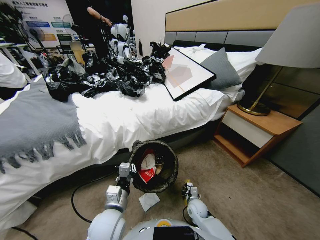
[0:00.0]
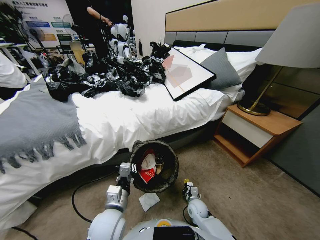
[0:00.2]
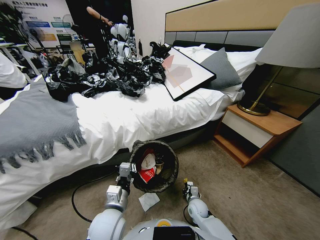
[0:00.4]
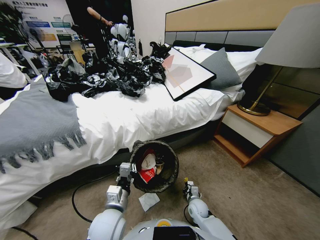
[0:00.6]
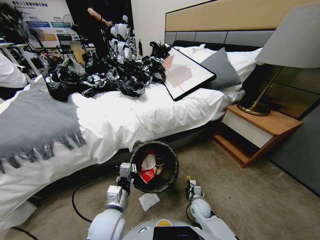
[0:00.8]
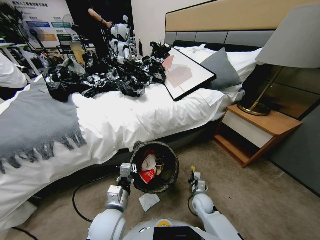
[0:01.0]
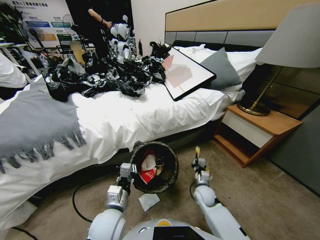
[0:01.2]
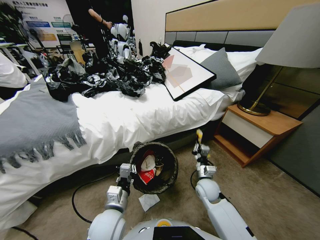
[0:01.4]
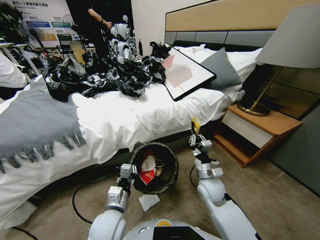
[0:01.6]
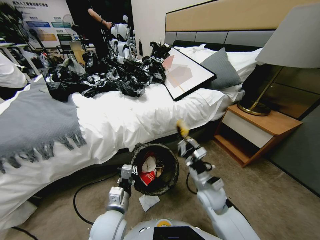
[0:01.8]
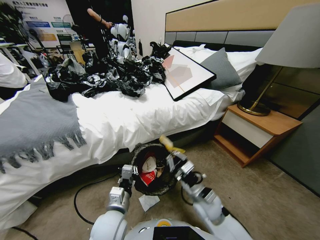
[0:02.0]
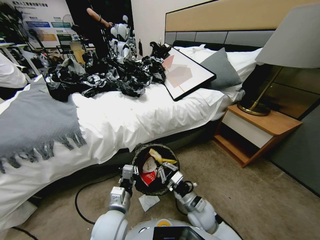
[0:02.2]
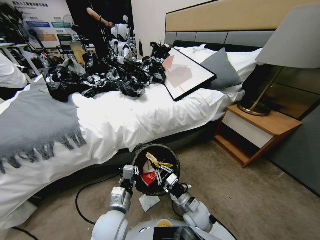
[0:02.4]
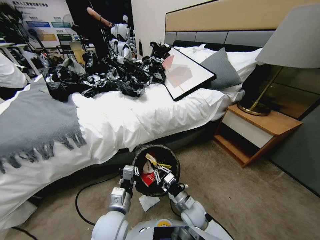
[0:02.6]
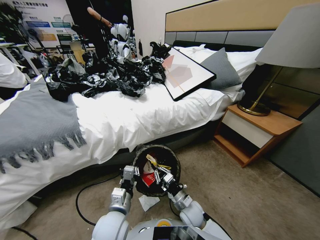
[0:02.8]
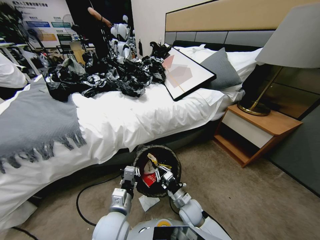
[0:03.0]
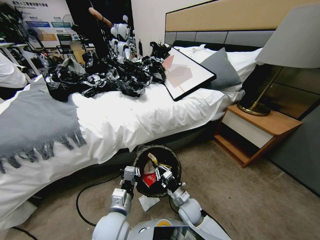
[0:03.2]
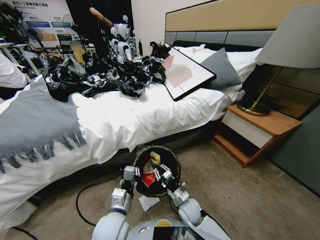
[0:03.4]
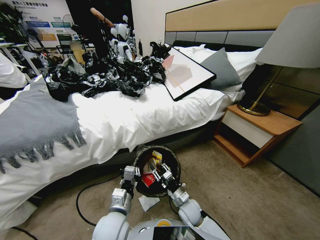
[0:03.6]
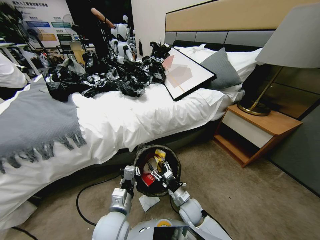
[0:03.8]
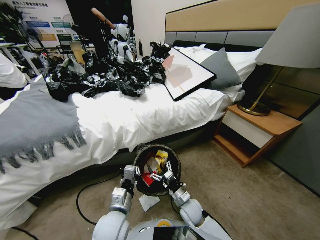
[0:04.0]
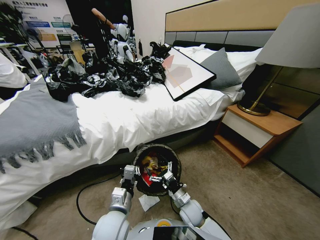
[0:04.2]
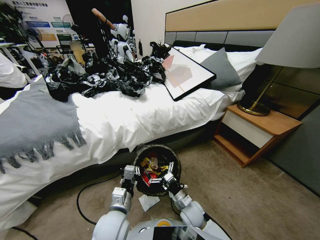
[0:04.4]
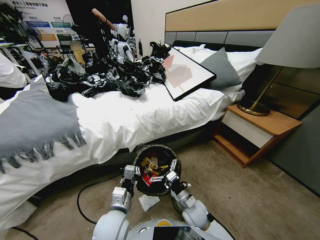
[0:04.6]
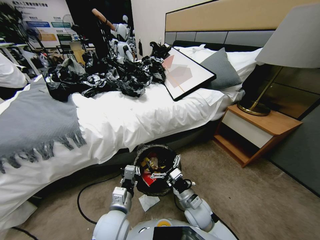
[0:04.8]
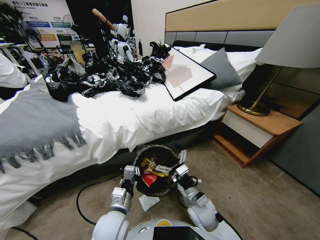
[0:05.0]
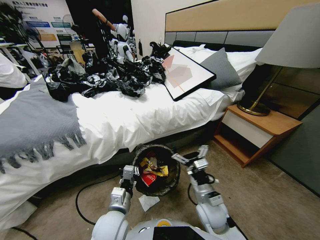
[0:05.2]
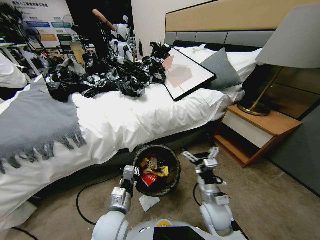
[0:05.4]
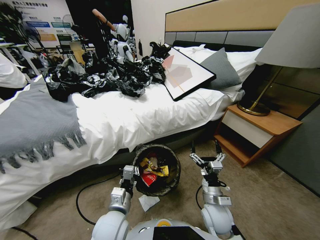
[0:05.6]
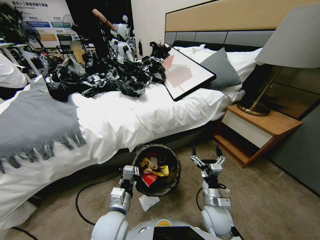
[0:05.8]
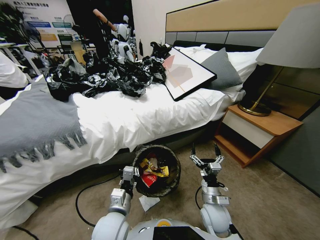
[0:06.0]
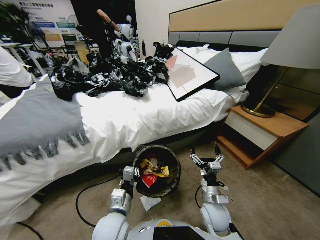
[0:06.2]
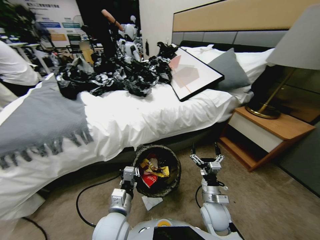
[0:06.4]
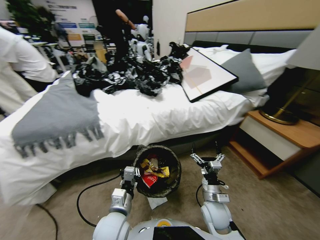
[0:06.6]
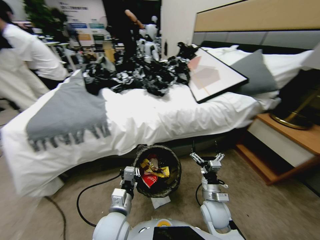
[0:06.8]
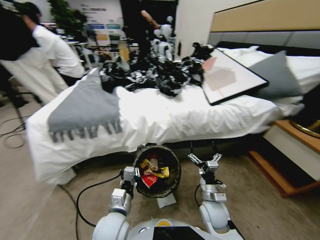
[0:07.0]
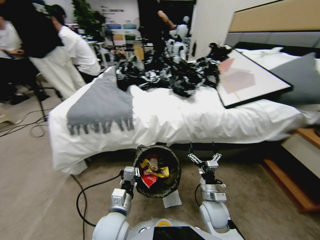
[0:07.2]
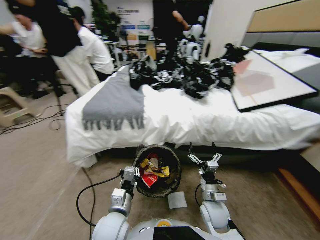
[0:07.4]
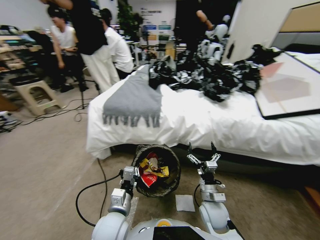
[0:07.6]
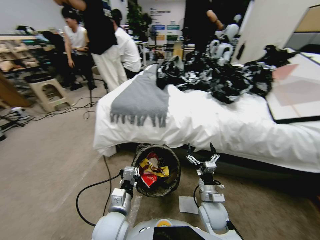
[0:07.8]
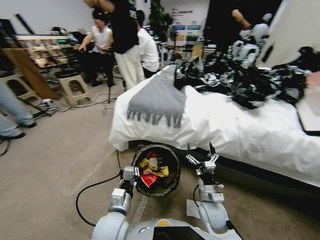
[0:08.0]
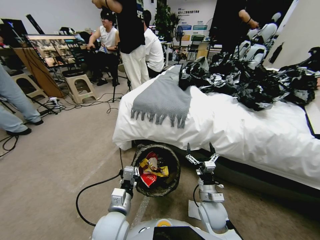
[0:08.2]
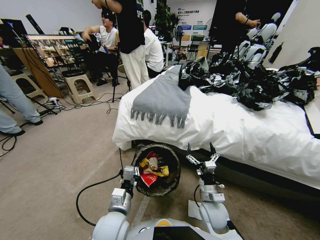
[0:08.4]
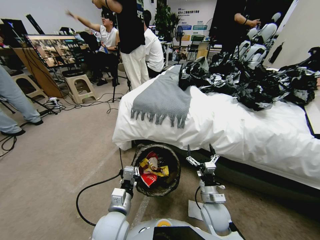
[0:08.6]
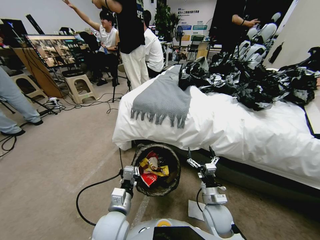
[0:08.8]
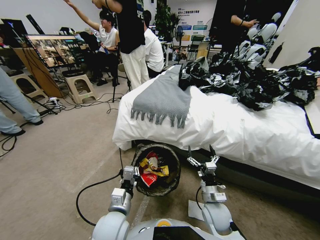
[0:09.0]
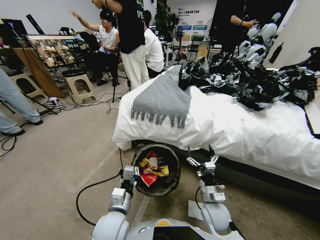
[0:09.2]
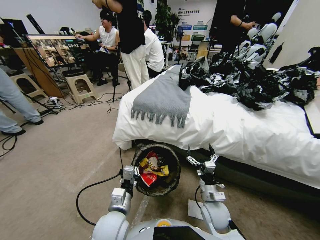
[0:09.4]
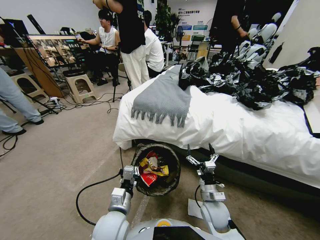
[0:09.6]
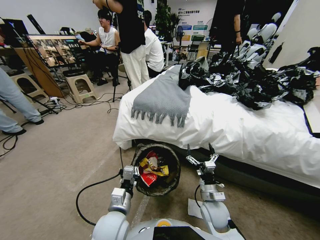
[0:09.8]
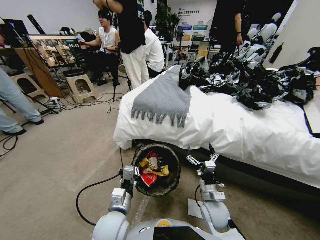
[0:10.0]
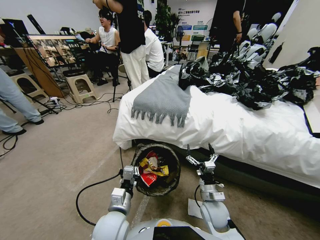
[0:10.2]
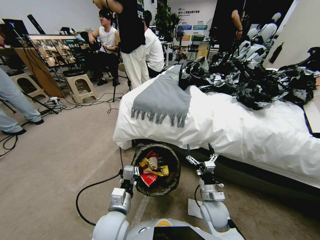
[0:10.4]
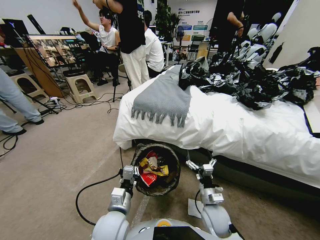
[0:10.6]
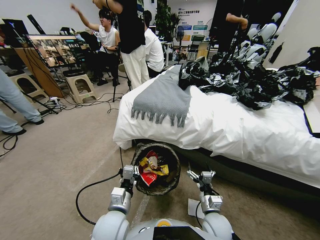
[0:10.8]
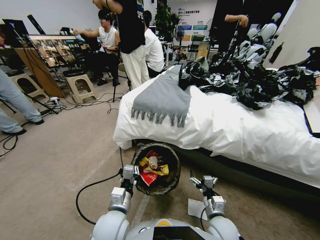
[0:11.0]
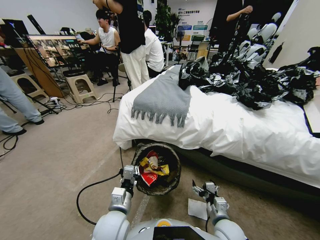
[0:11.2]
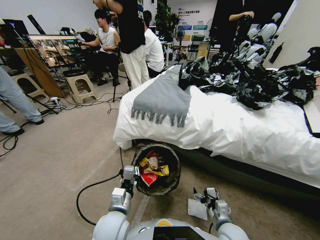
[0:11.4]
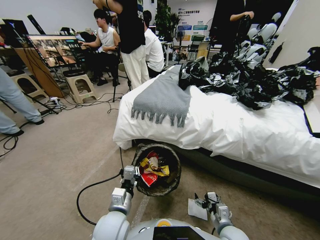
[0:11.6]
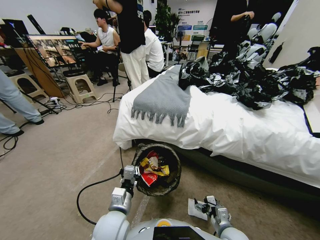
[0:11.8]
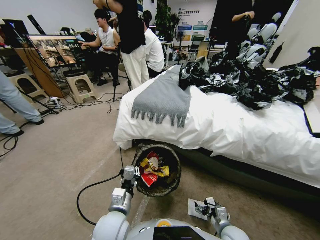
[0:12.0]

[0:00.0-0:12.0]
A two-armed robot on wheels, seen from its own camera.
Task of the whole recording: Pick up the trash bin, then pick up the garbage from the floor and place it into the trash bin.
0:00.0 to 0:01.6: The right gripper goes approximately 25 cm upward.
0:01.6 to 0:03.0: The right gripper shifts some 15 cm downward and to the left.
0:03.0 to 0:04.4: The right gripper opens.
0:04.4 to 0:06.0: The right gripper shifts roughly 5 cm to the right.
0:09.0 to 0:10.4: Neither gripper changes place.
0:10.4 to 0:12.0: The right gripper heads to the right, backward and downward, covering about 10 cm.

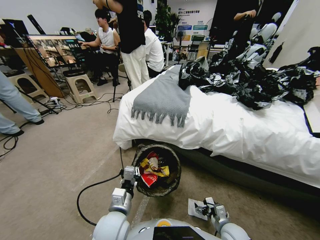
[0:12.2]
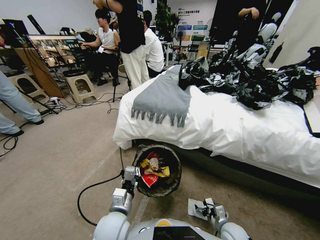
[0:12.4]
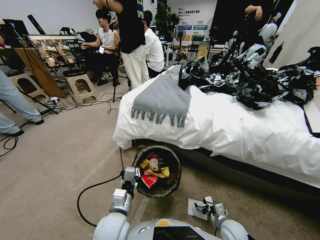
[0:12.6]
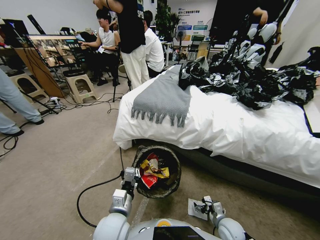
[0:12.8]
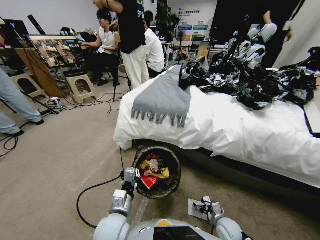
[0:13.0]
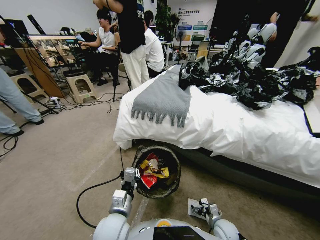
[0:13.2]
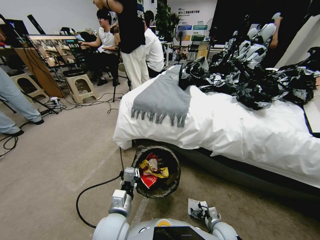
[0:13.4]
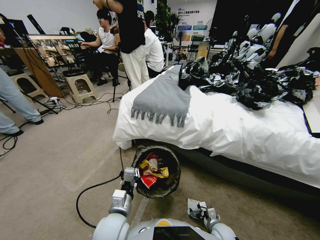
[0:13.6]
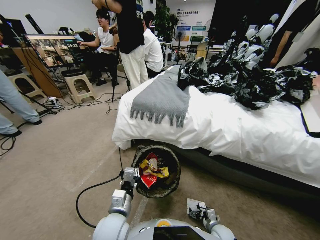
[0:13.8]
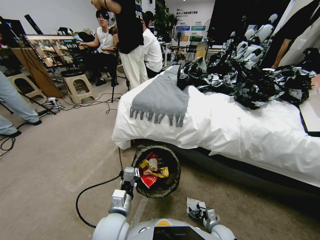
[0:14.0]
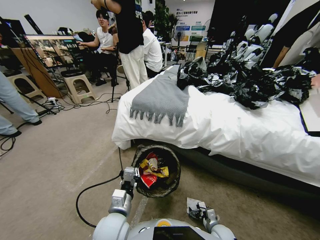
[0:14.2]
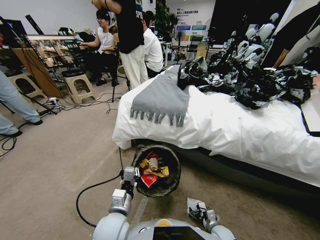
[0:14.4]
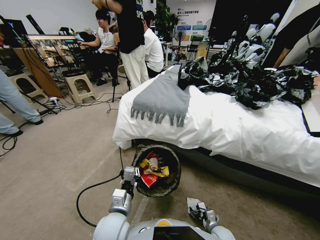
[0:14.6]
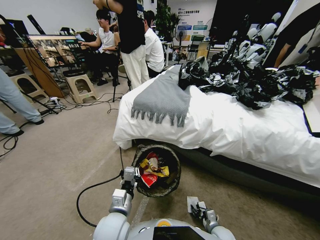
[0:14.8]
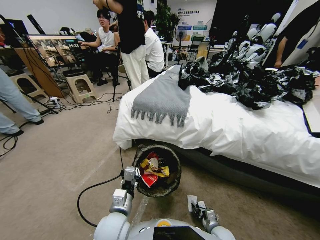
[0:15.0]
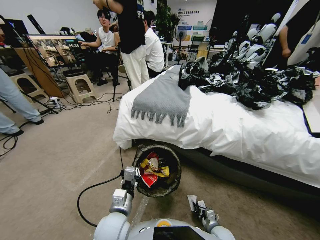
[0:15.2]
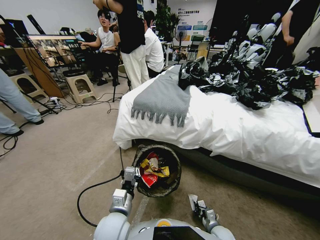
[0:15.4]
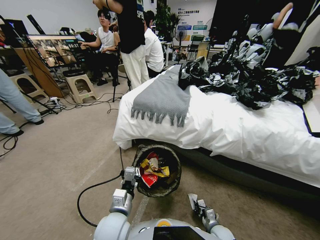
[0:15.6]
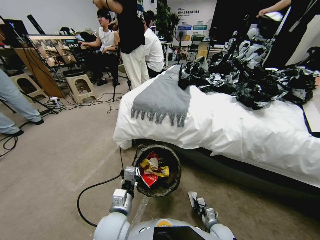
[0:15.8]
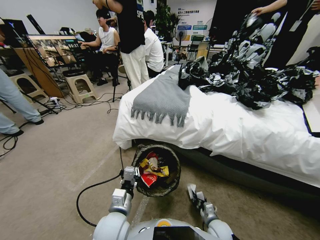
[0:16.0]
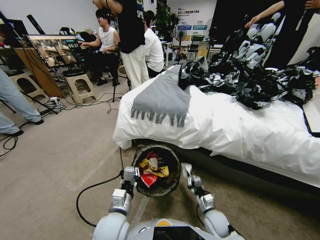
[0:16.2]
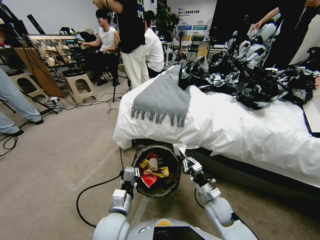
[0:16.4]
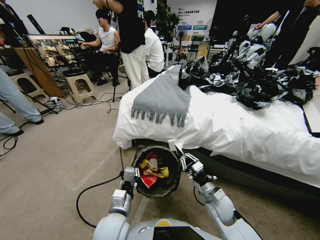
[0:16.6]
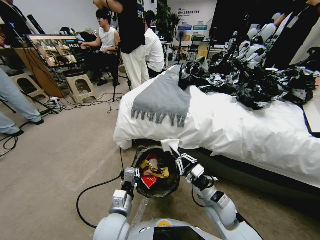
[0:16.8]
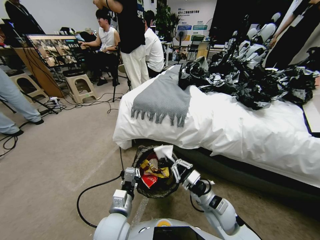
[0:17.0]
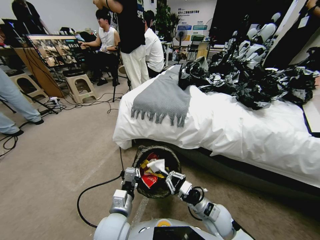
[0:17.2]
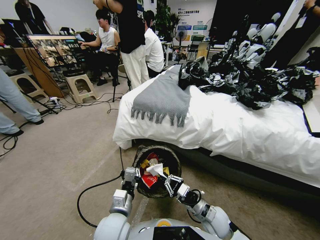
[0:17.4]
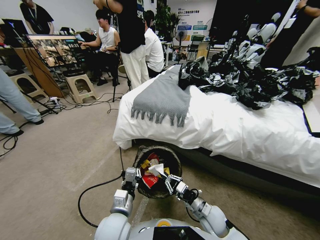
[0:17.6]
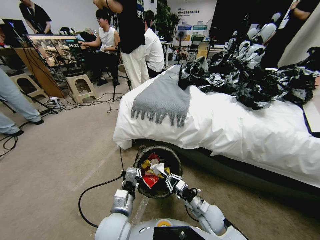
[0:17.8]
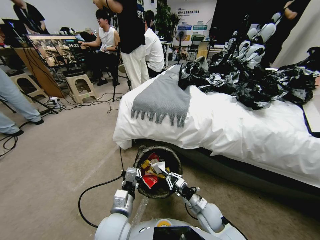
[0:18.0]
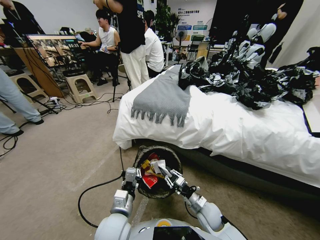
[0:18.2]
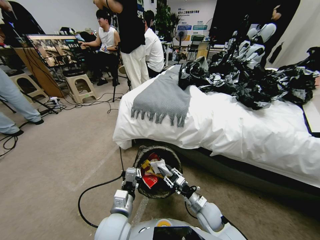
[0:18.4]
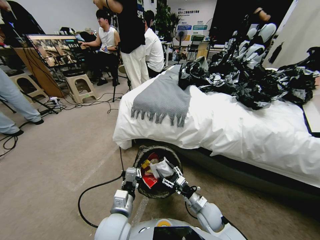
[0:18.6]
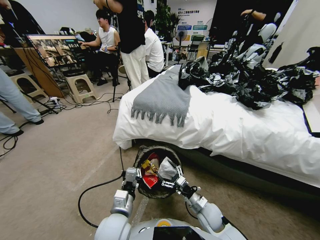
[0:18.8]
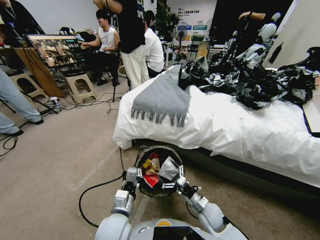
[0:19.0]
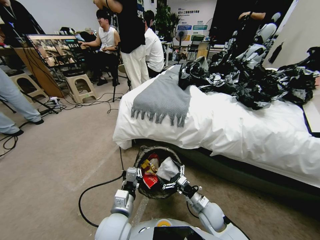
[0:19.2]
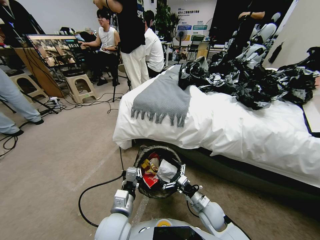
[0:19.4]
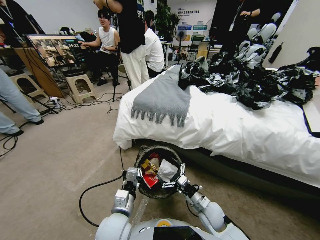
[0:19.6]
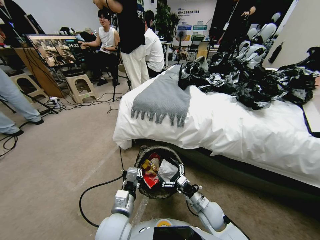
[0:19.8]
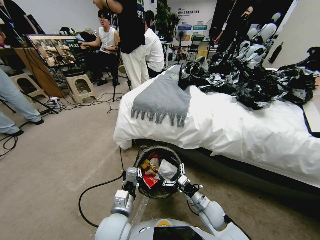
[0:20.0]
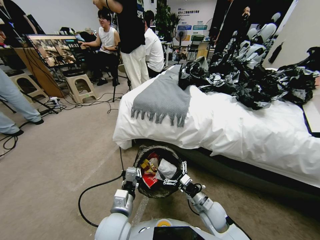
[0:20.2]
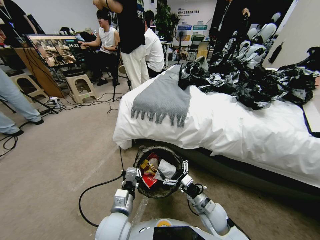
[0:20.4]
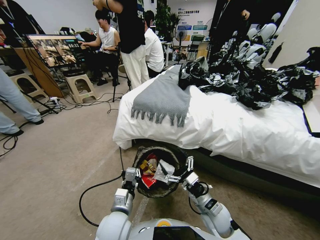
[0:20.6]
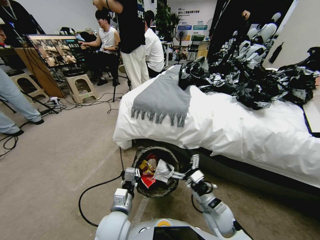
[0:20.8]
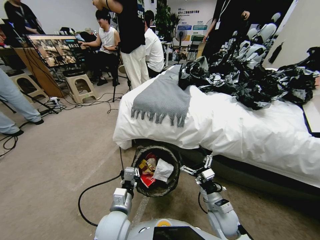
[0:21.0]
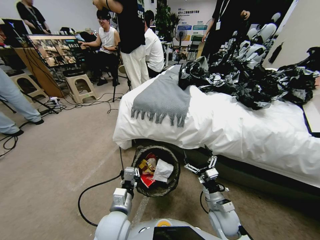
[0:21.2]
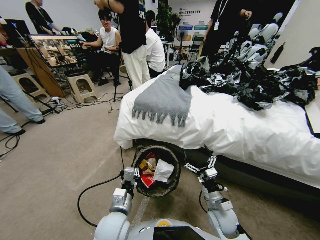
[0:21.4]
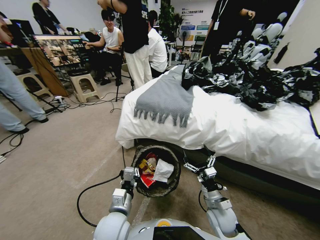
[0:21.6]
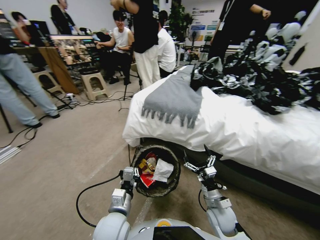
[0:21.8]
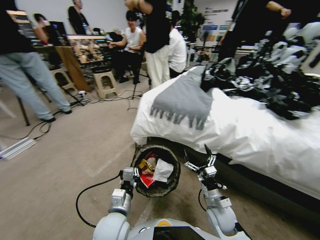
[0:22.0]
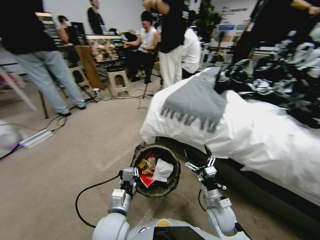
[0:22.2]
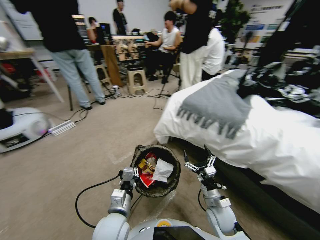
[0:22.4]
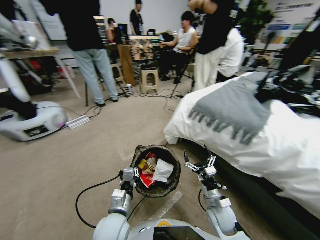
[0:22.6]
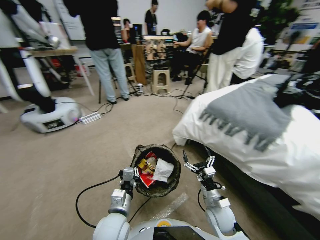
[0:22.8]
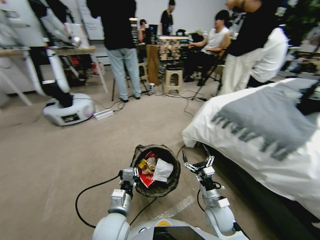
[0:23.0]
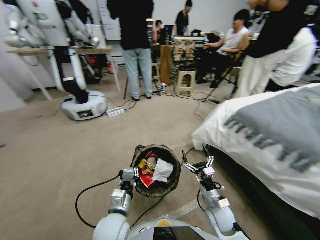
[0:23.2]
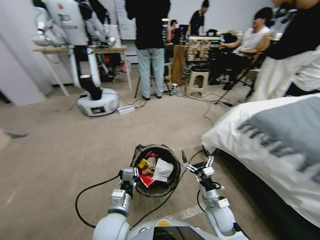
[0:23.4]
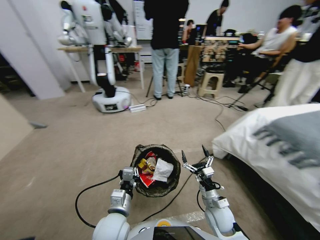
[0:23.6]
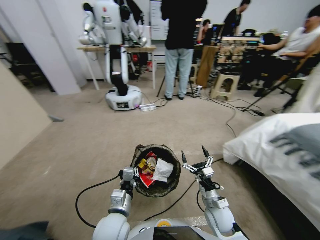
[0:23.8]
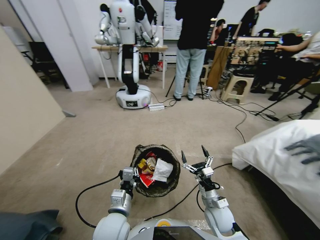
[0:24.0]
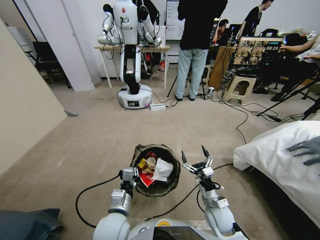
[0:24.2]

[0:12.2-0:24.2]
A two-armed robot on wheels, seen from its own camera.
Task of the whole recording: Pick up the trash bin, then pick up the garbage from the floor and place it into the trash bin.
0:12.2 to 0:13.8: The right gripper is displaced downward by roughly 10 cm.
0:13.8 to 0:15.2: The right gripper closes up.
0:15.2 to 0:16.6: The right gripper moves upward and forward, roughly 20 cm.
0:16.6 to 0:18.2: The right gripper goes approximately 10 cm downward.
0:18.2 to 0:19.8: The right gripper opens.
0:19.8 to 0:21.2: The right gripper shifts by approximately 5 cm.
